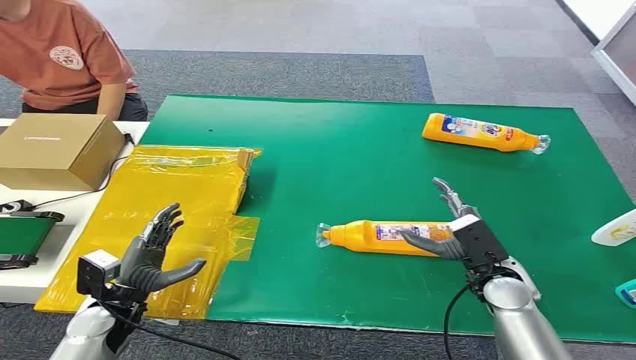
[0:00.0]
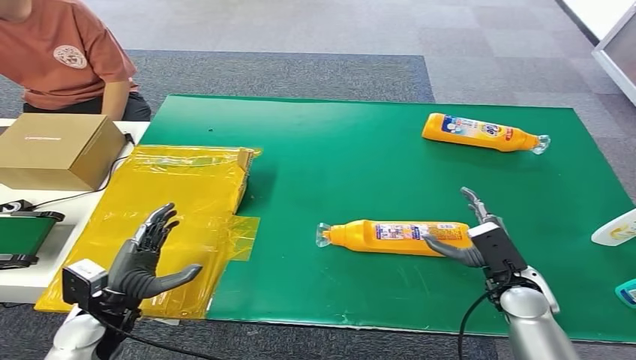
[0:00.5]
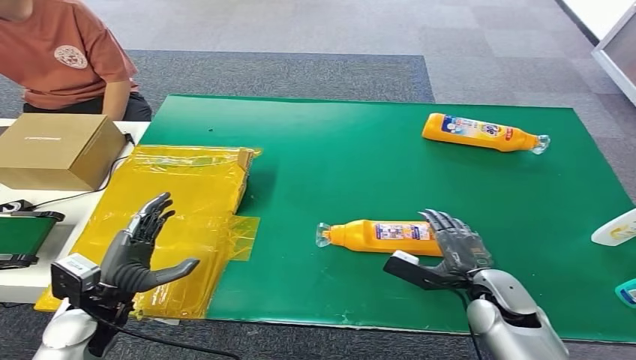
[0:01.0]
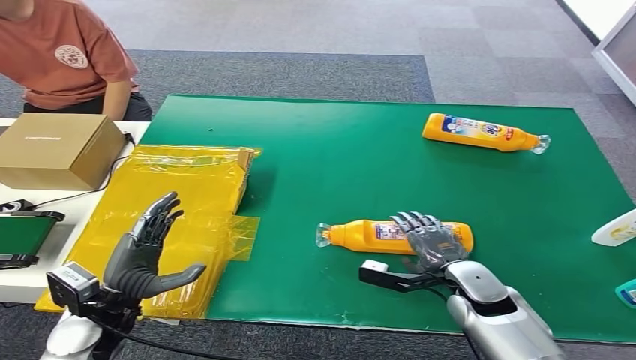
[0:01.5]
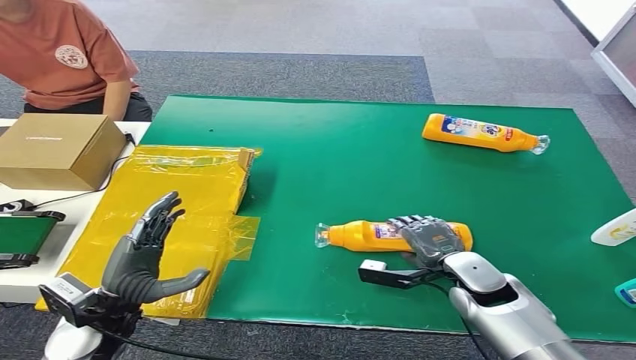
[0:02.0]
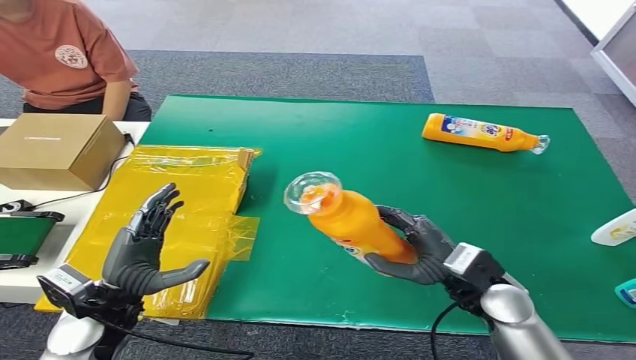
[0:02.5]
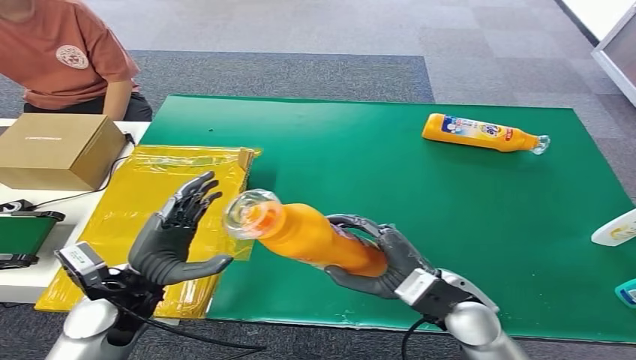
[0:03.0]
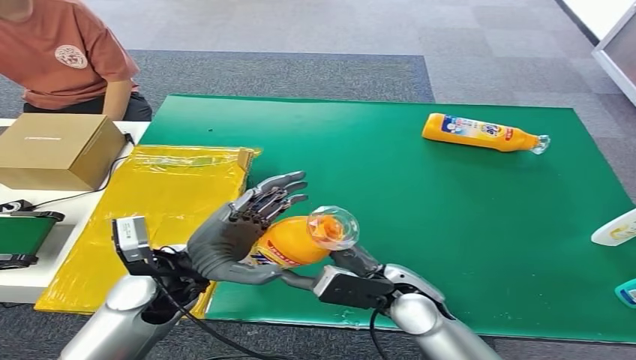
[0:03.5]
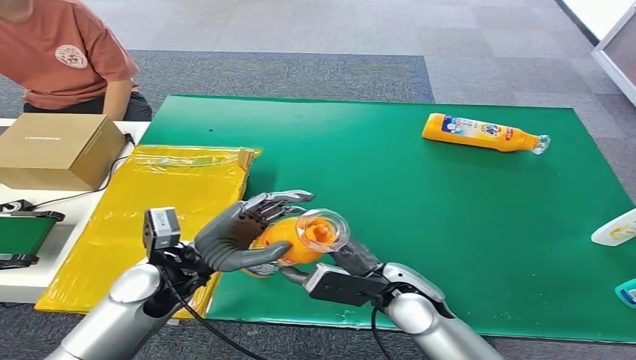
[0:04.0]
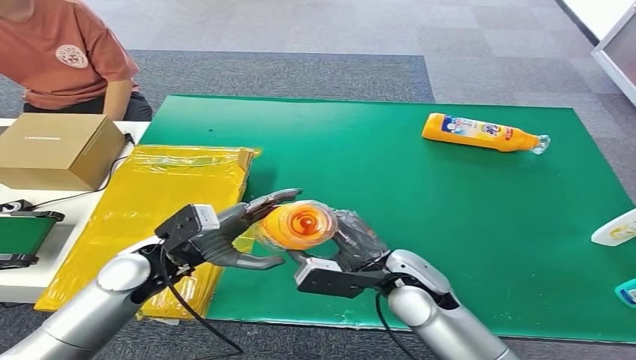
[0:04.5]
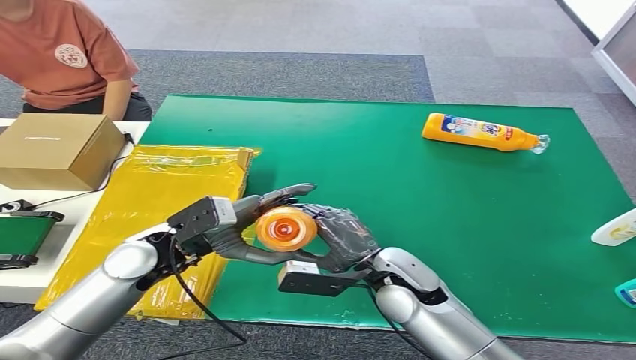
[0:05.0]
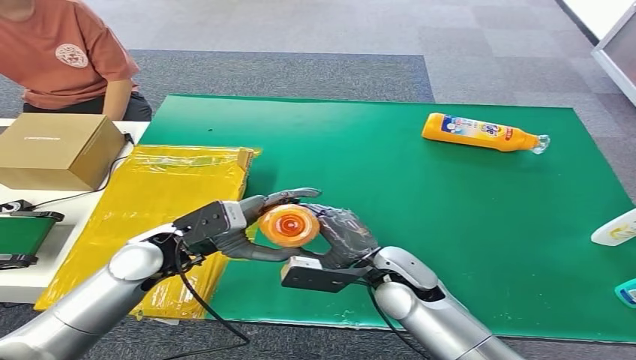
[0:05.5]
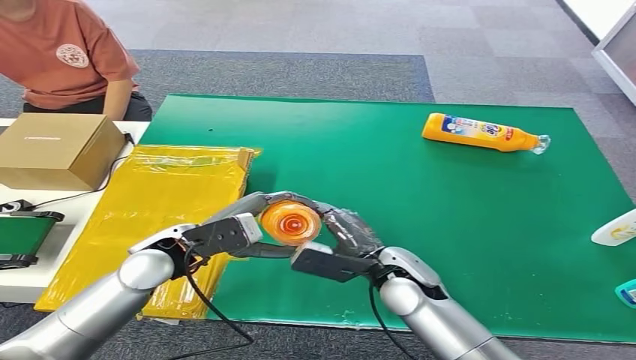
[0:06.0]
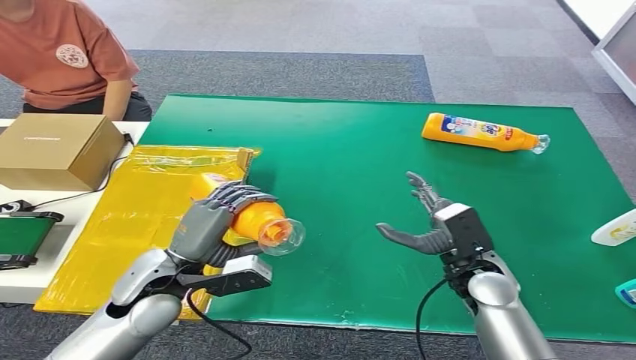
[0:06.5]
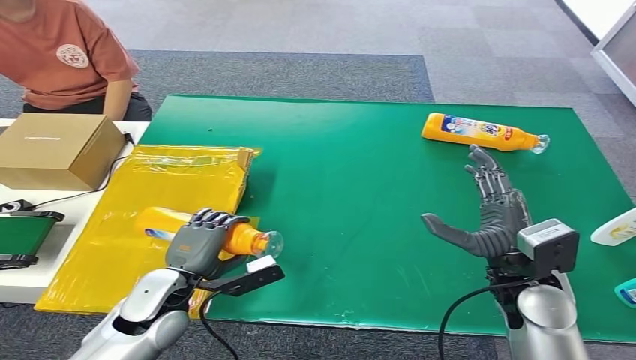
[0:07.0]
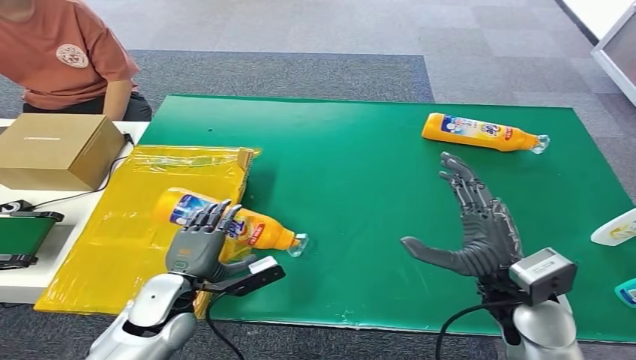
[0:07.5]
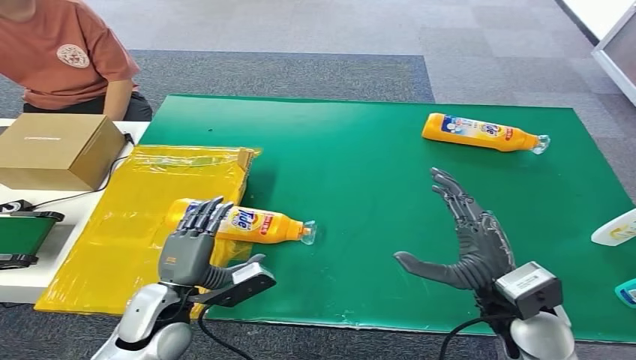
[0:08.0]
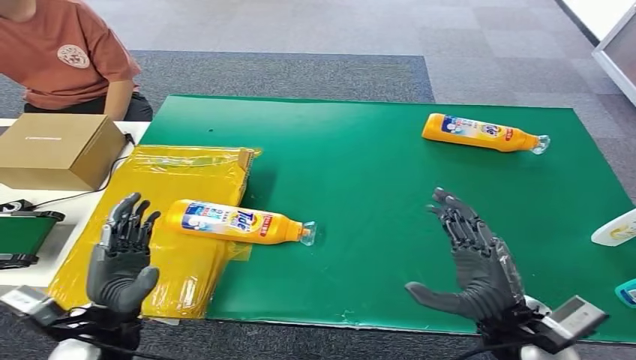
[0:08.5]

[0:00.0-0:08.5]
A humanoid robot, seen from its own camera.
Step, 0:00.0 to 0:02.5: Pick up the bottle from the table.
Step, 0:03.0 to 0:08.5: Turn the bottle to the front side.
0:02.0 to 0:04.0: The right hand shifts roughly 10 cm to the left; the left hand heads to the right and forward, covering roughly 10 cm.
0:04.0 to 0:06.5: The right hand is displaced to the right by approximately 10 cm.
0:06.5 to 0:08.5: The left hand heads backward, covering some 5 cm, and reaches approximately 10 cm downward, then returns. Meanwhile the right hand moves backward and upward, some 10 cm.

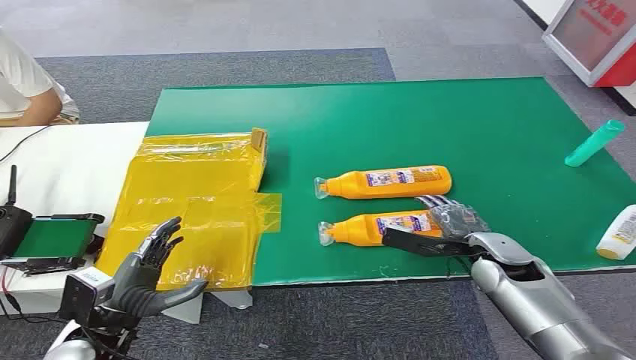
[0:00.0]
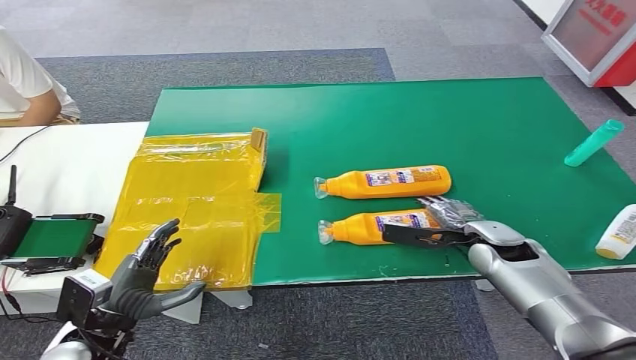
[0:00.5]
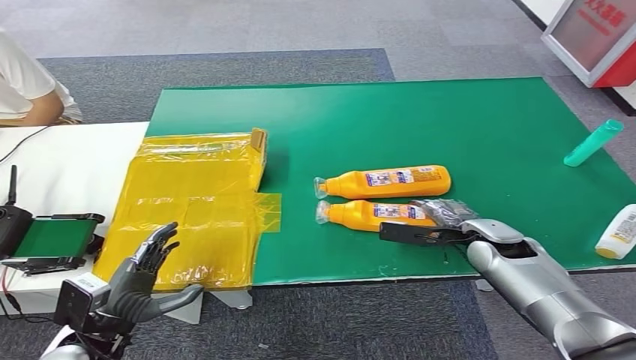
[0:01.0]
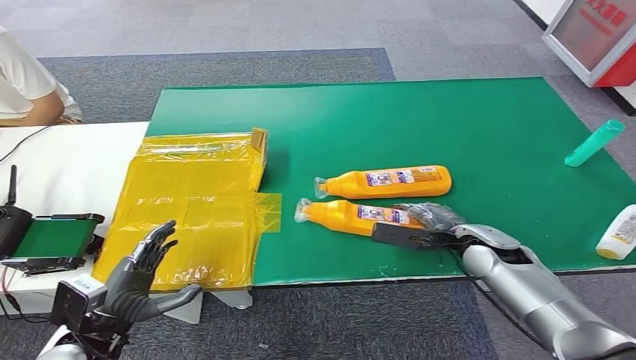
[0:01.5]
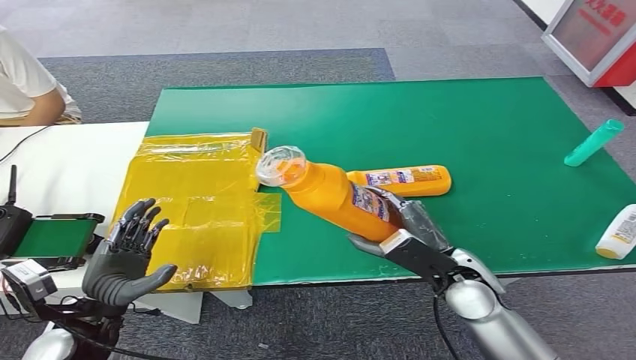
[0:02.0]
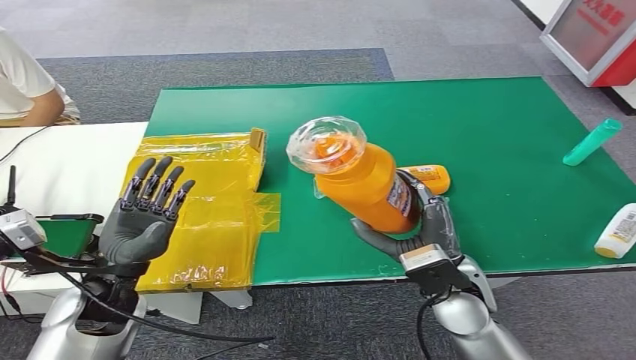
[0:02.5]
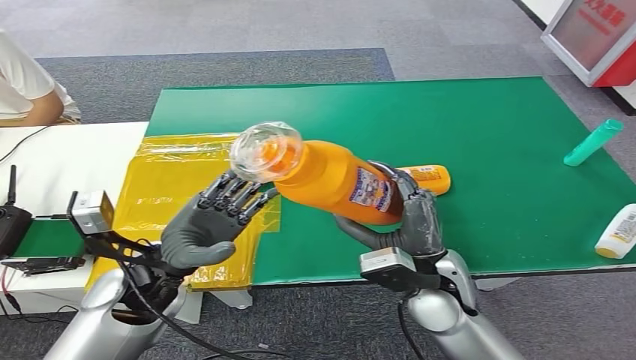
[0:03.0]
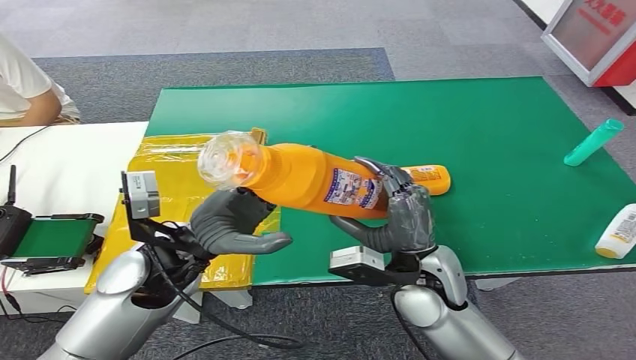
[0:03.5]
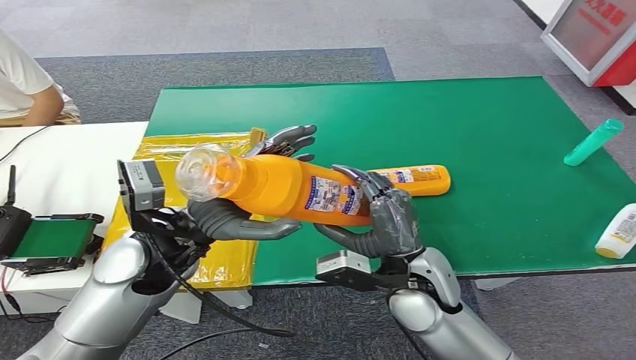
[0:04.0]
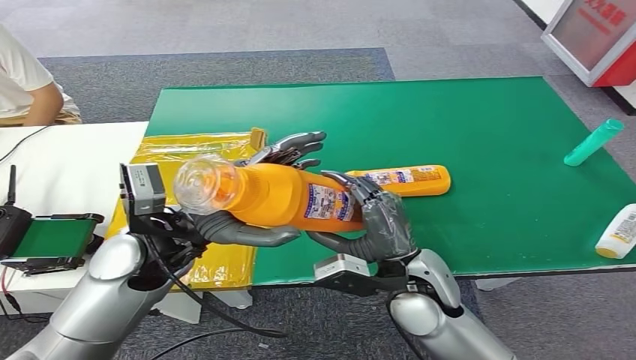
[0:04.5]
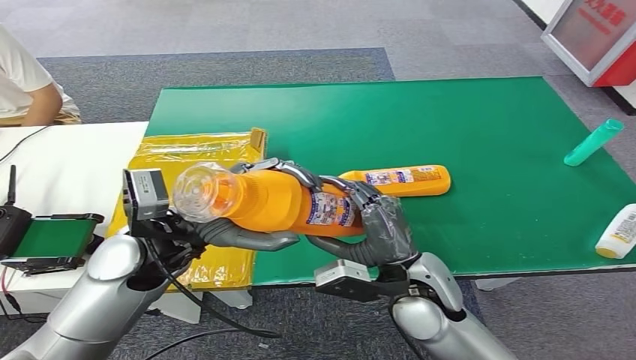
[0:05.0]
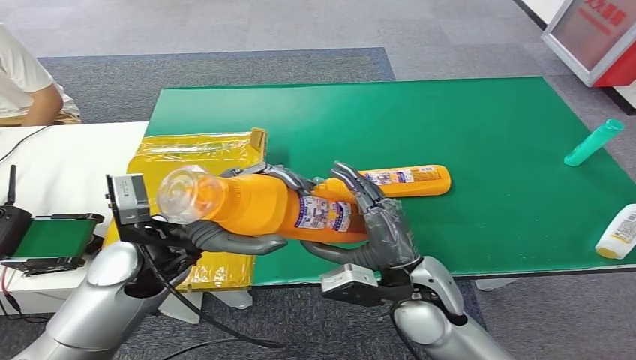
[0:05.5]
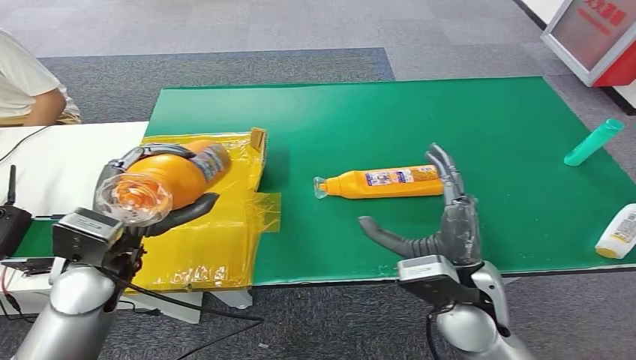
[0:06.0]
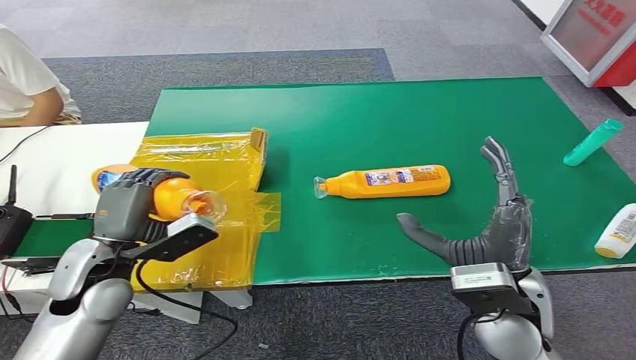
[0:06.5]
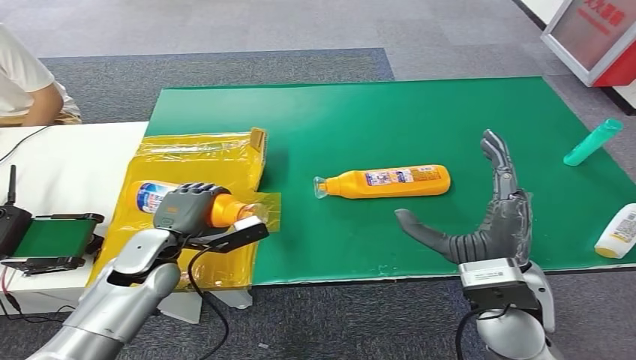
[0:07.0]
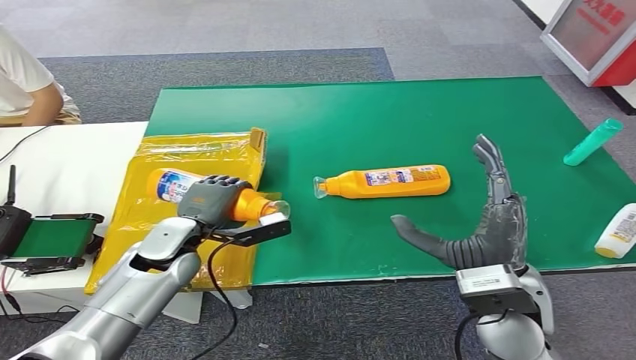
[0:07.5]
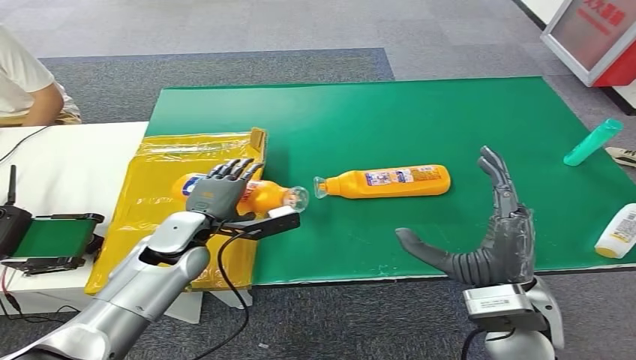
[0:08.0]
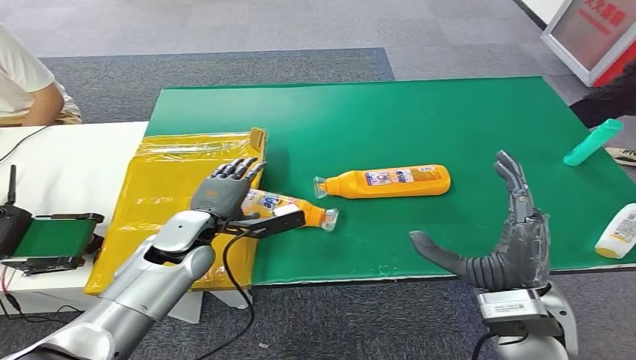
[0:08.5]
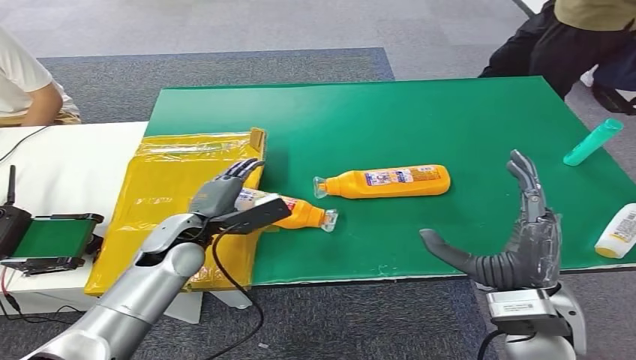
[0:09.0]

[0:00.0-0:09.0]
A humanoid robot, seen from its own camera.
Step, 0:00.0 to 0:02.0: Pick up the bottle from the table.
Step, 0:02.5 to 0:09.0: Turn the bottle to the front side.
0:07.0 to 0:09.0: The left hand ends up some 5 cm from where it was.
